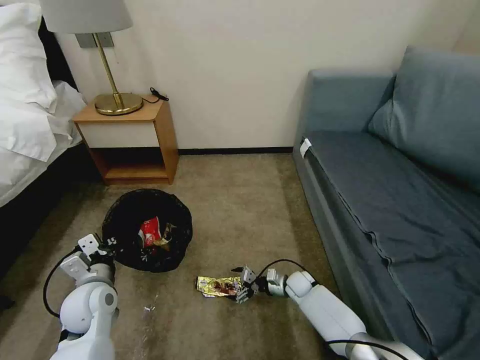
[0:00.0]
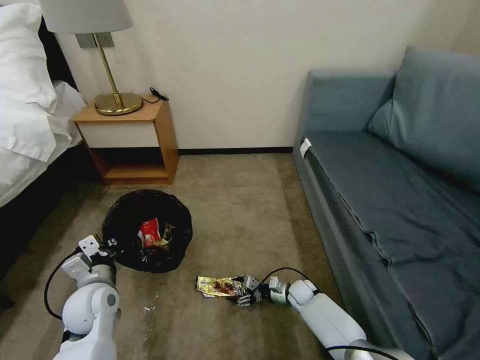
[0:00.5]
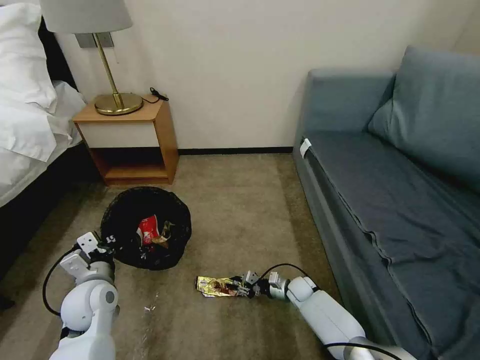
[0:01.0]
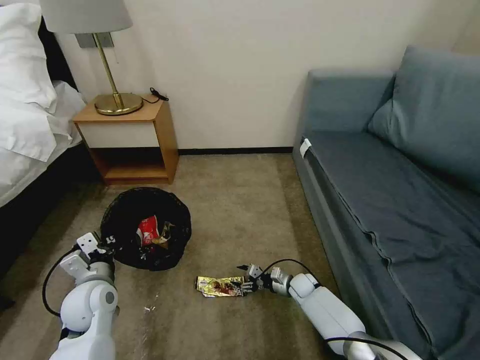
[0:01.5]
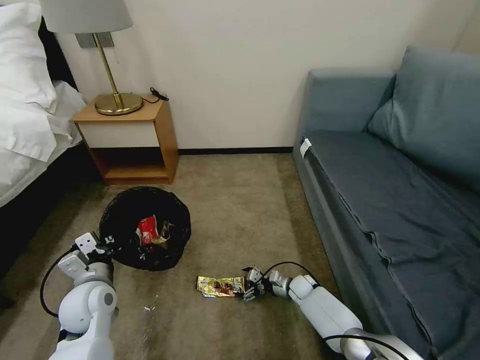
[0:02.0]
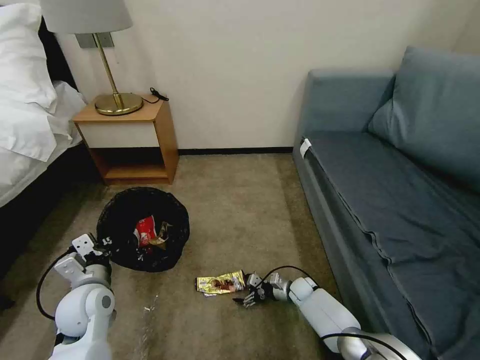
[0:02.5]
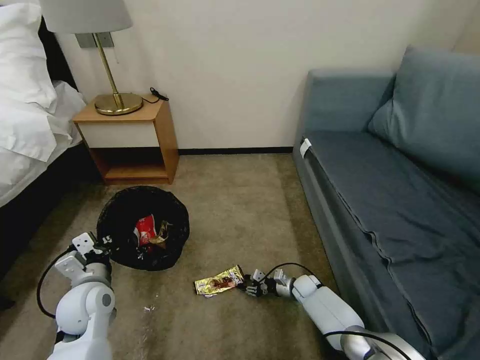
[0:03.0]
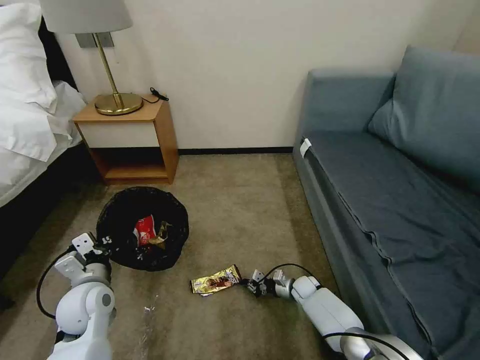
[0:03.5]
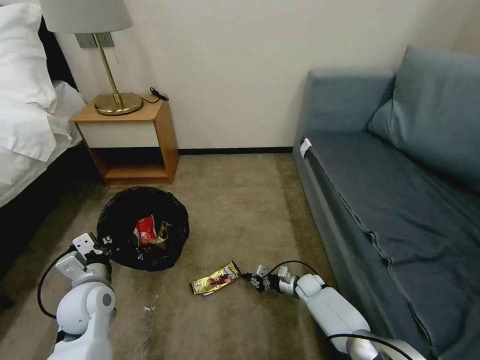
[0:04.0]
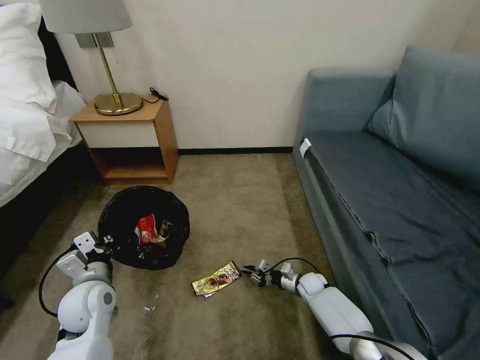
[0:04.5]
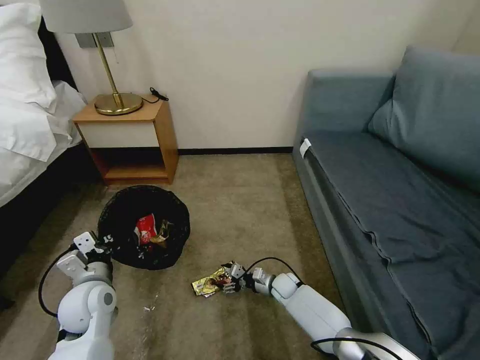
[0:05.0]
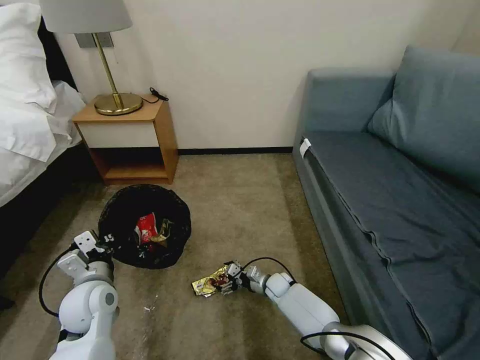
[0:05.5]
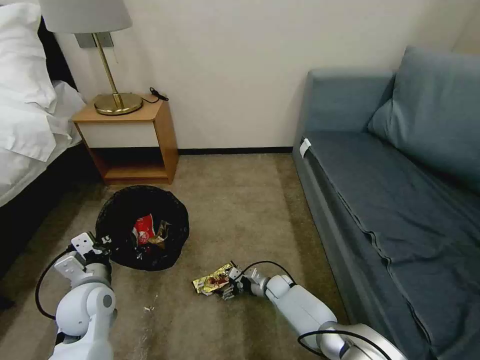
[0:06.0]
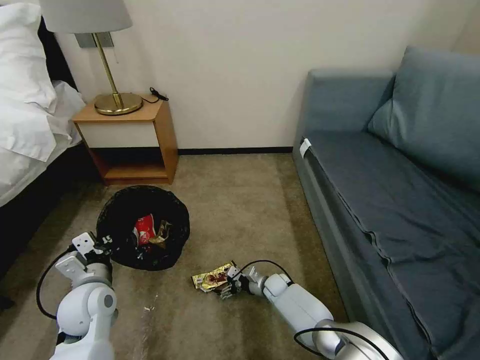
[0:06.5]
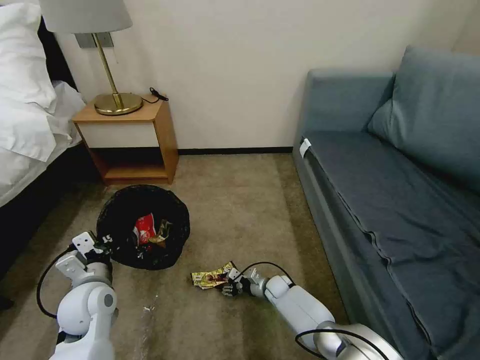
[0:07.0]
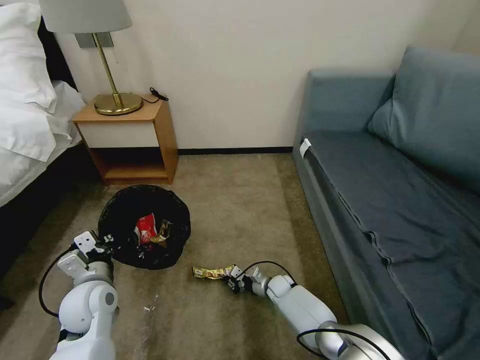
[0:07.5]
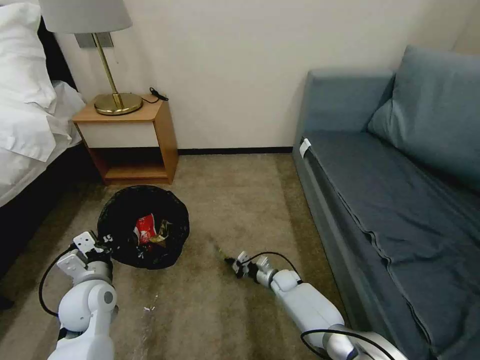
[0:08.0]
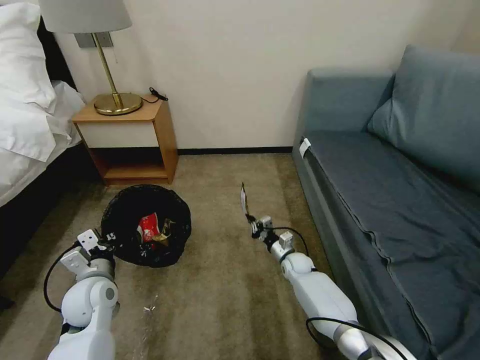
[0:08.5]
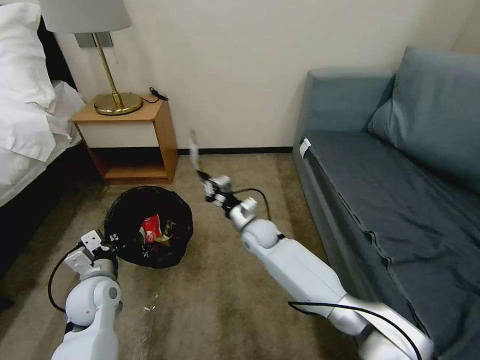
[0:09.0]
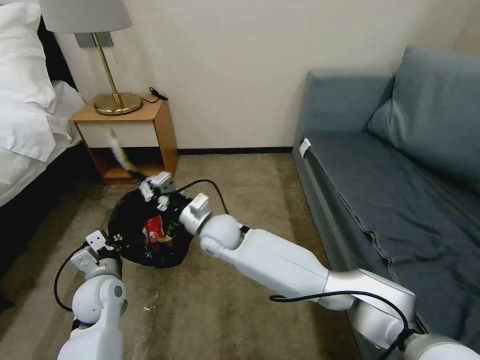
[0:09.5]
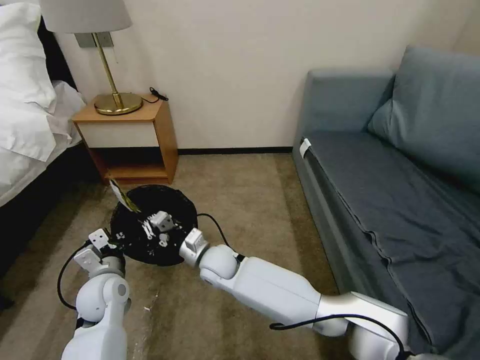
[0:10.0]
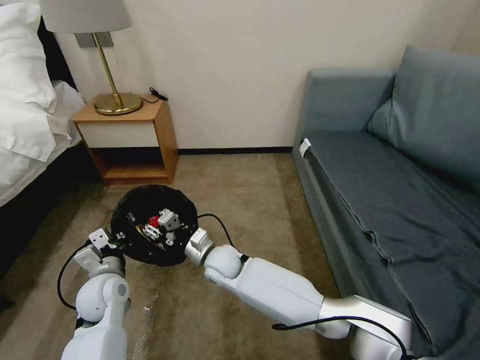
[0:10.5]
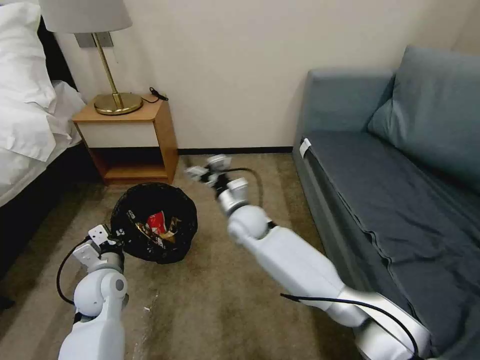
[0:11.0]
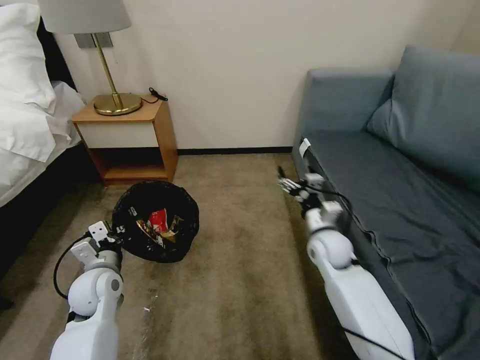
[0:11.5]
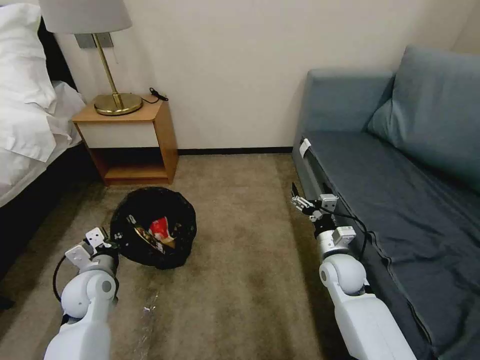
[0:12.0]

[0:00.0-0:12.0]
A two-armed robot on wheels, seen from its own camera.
Task of the whole recording: Pick up the trash bin, then pick up the garbage on the floor and place it into the trash bin.
0:00.0 to 0:02.0: The right gripper closes, then opens again.
0:02.0 to 0:04.0: The right gripper closes its fingers.
0:04.0 to 0:06.0: The right gripper heads to the left, covering some 10 cm, and opens up.
0:06.0 to 0:08.0: The right gripper closes.
0:08.0 to 0:10.0: The right gripper goes roughly 30 cm to the left and upward.
0:10.0 to 0:12.0: The right gripper travels to the right by roughly 30 cm, and opens its fingers.

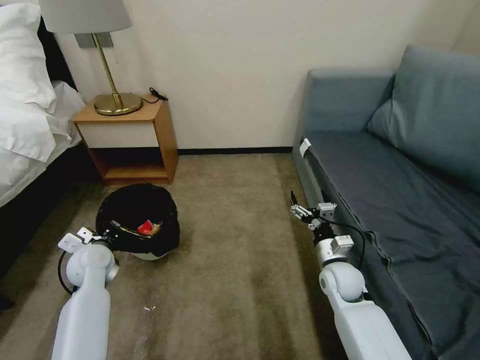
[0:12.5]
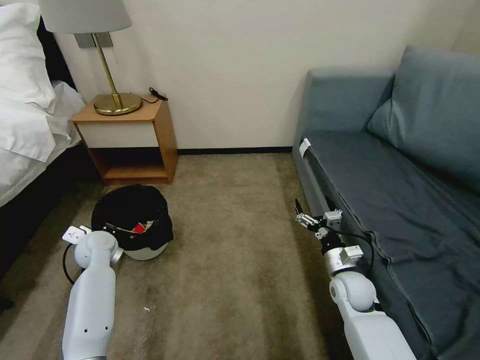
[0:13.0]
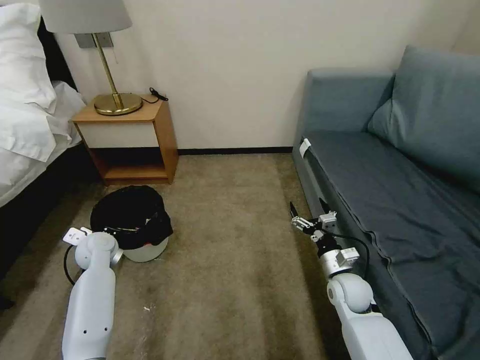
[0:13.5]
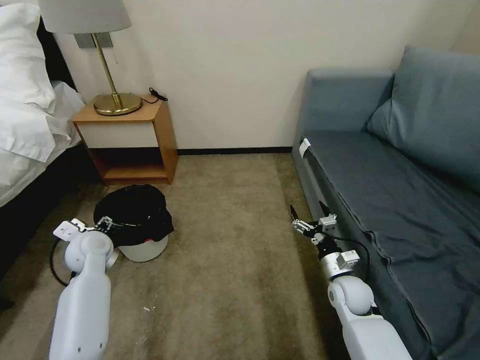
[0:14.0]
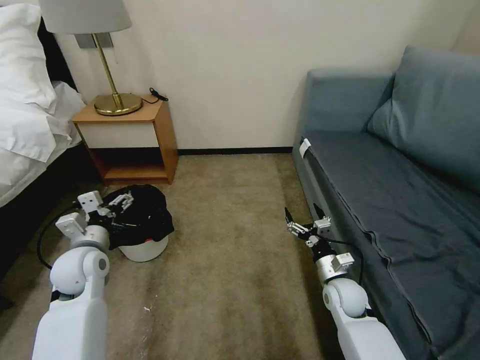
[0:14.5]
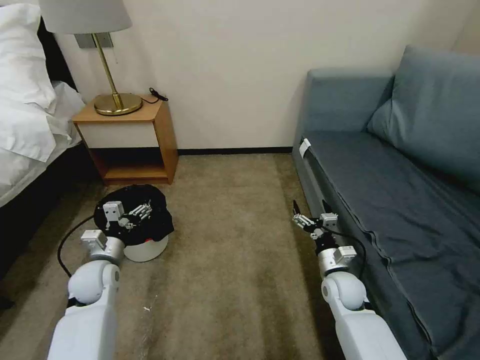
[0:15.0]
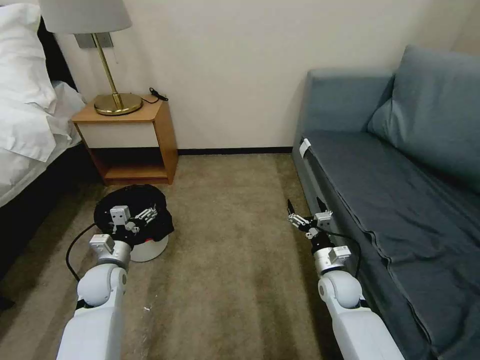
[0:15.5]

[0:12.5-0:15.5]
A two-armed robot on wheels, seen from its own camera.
Task of the whole recording: Pick up the trash bin, then pick up the garbage on the floor and place it into the trash bin.
0:12.5 to 0:14.0: The left gripper opens.
0:14.0 to 0:15.5: The left gripper is displaced downward and backward by some 10 cm.

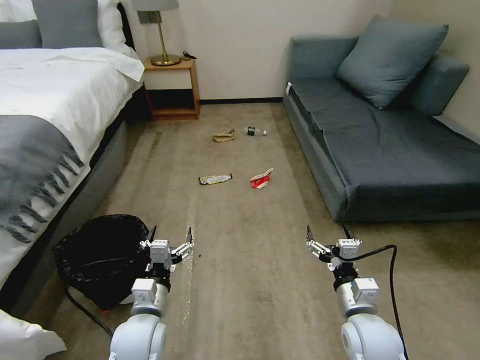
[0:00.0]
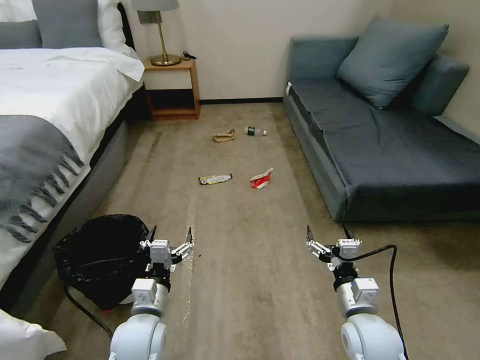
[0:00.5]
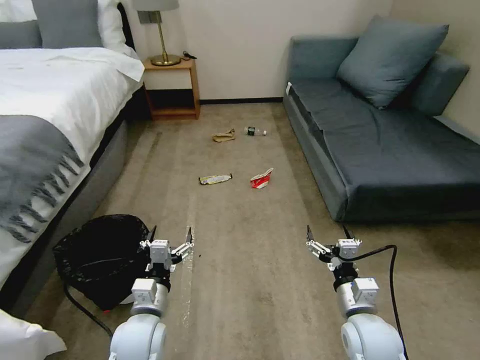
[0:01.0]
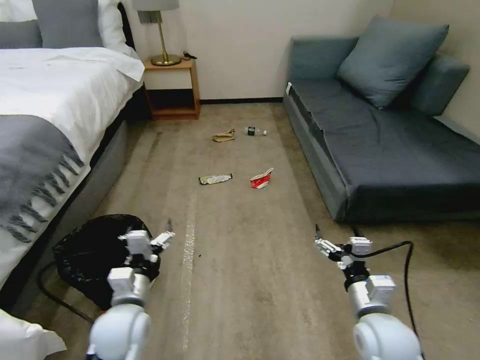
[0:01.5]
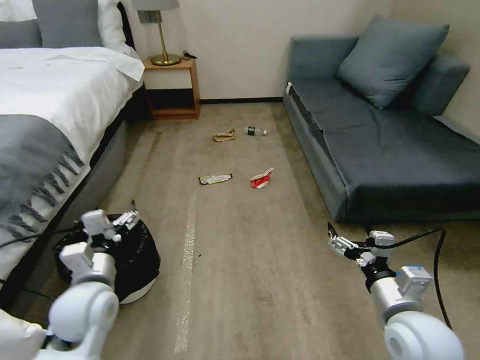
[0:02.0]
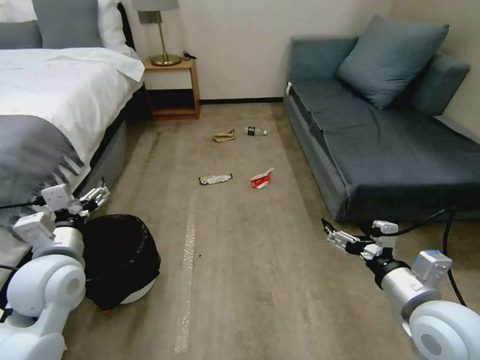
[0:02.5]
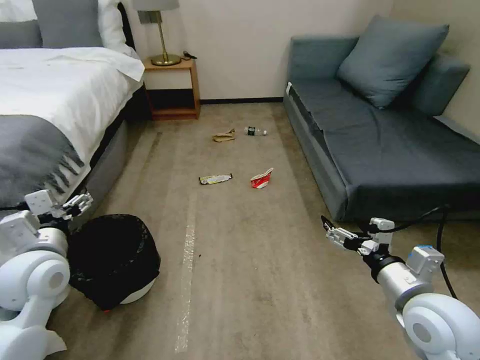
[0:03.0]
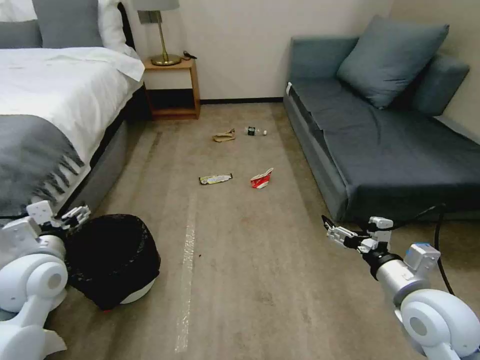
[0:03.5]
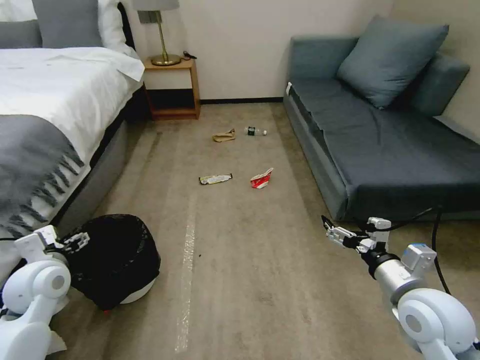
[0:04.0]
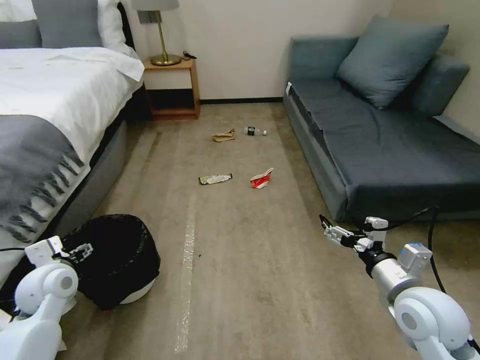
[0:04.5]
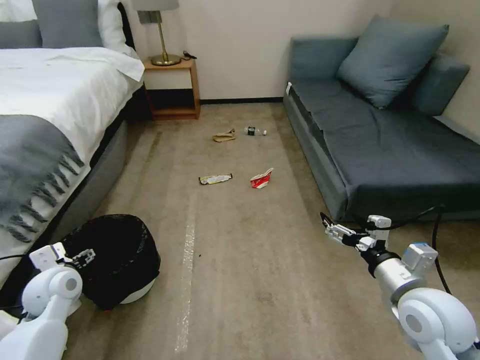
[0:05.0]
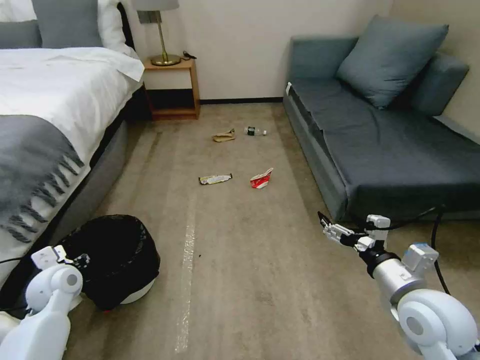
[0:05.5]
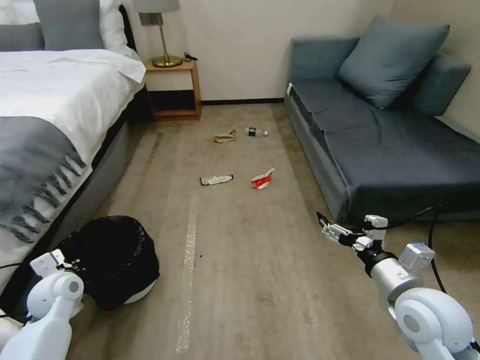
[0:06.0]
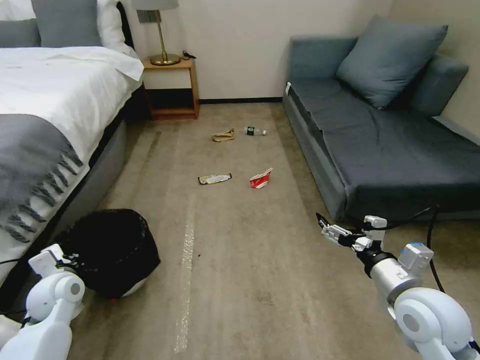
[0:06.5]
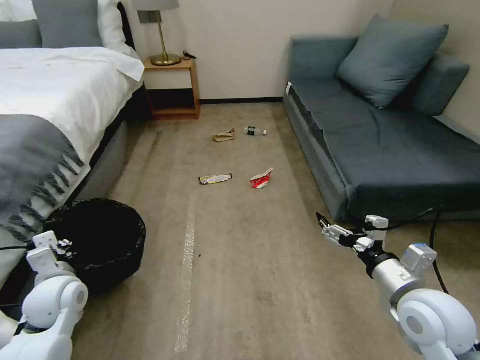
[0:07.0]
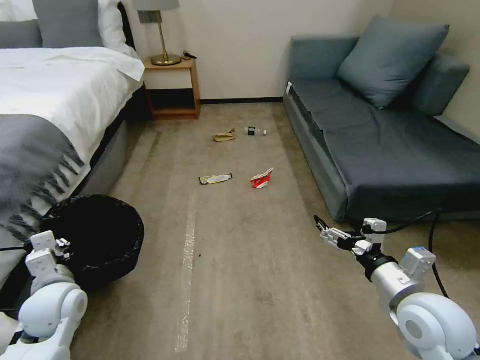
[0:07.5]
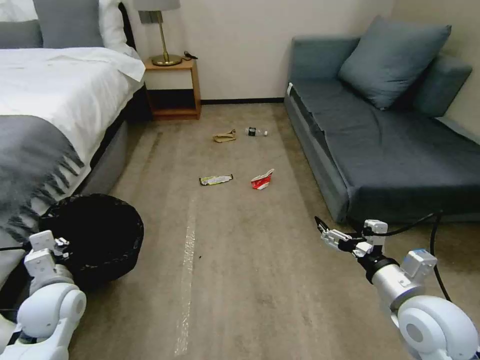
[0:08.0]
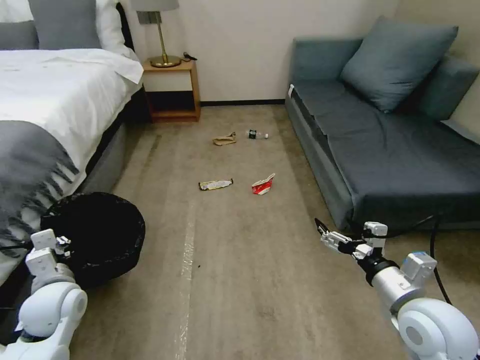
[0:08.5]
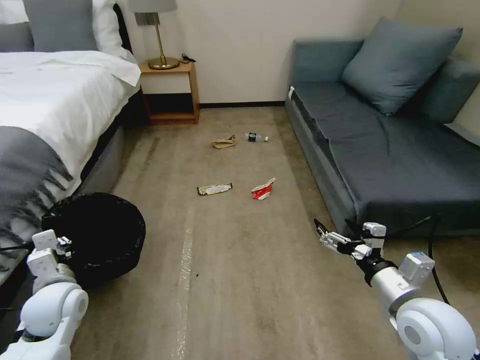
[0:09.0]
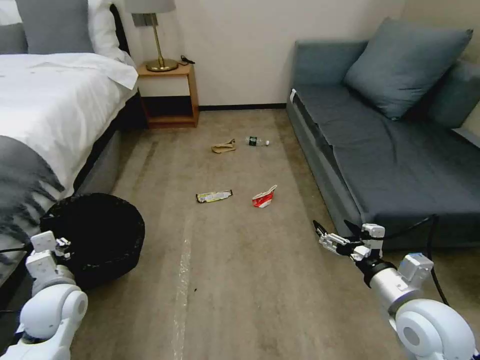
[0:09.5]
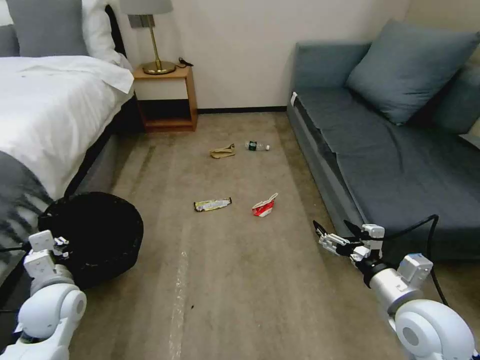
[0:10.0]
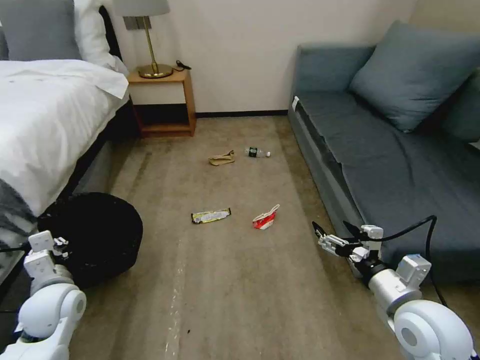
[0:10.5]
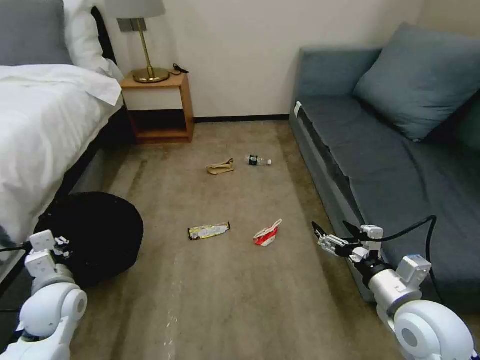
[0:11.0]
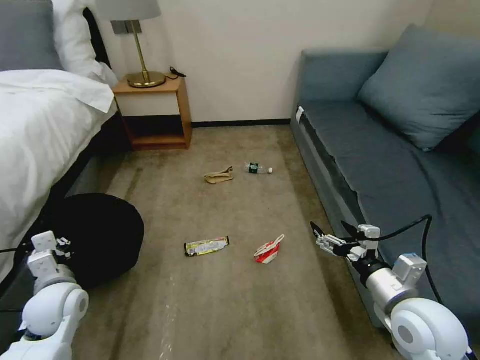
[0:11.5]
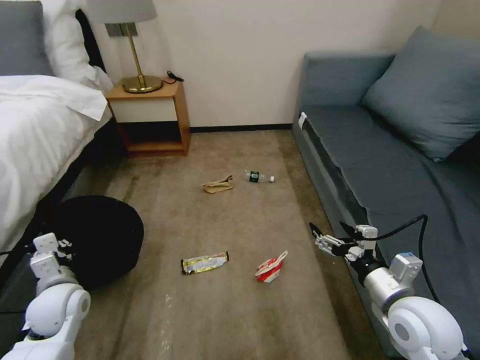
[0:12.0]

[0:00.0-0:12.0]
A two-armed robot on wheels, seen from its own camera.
Task of the whole recording: Pick up the trash bin, then pick up the garbage on the floor and place it into the trash bin.
0:02.0 to 0:04.0: The left gripper shifts about 10 cm to the left.
0:04.0 to 0:06.0: The left gripper shifts about 10 cm downward, and closes its fingers.
0:06.0 to 0:08.0: The left gripper ends up roughly 10 cm from where it was.
